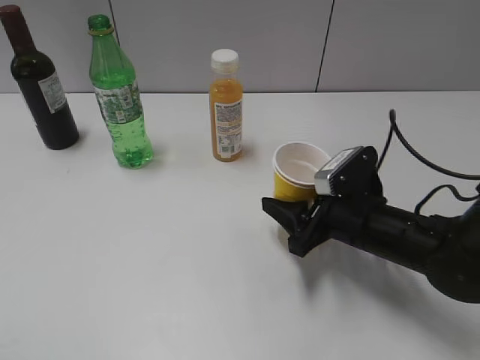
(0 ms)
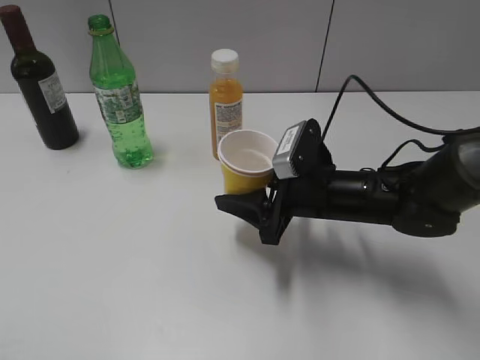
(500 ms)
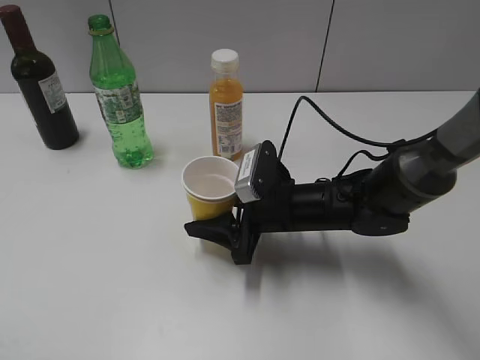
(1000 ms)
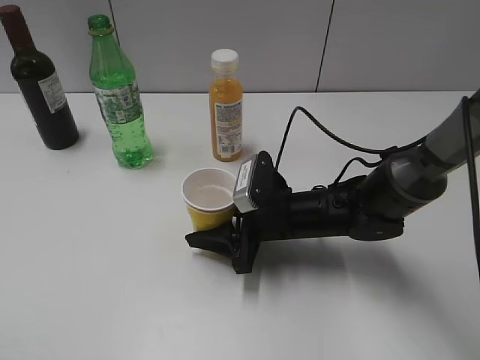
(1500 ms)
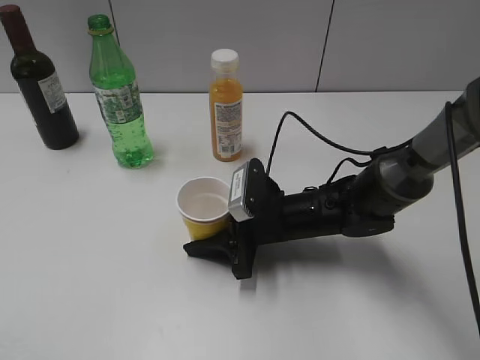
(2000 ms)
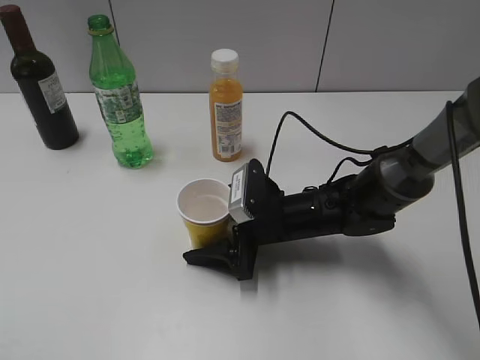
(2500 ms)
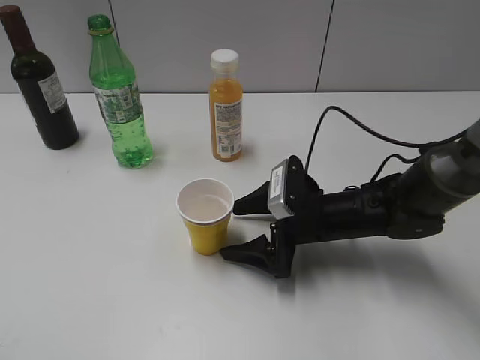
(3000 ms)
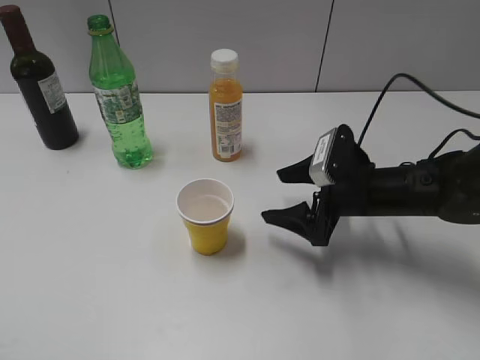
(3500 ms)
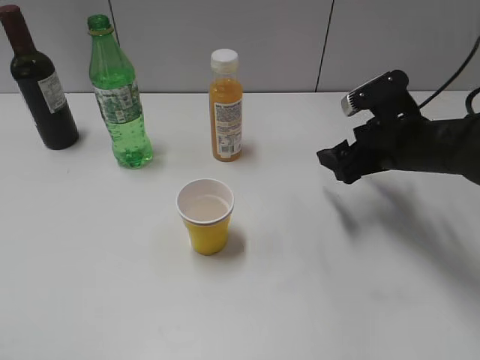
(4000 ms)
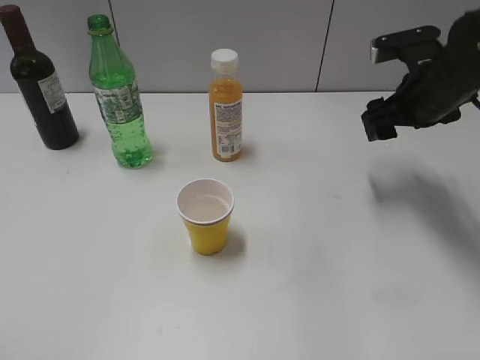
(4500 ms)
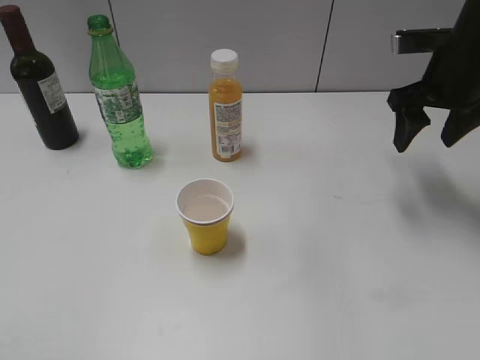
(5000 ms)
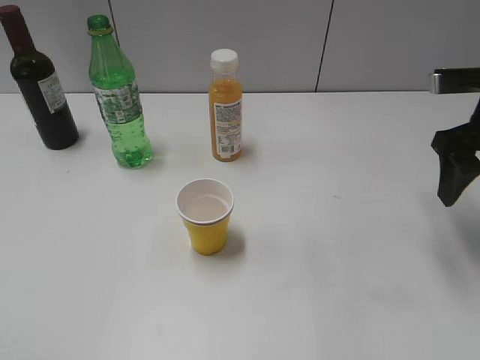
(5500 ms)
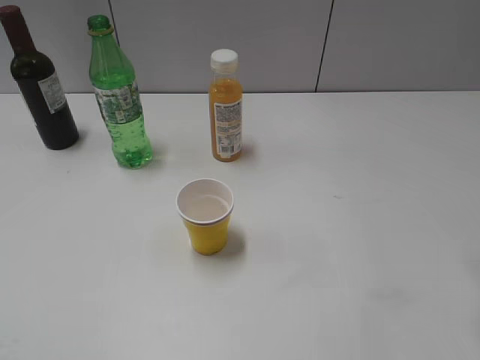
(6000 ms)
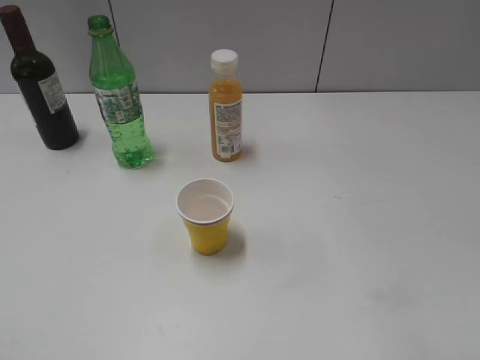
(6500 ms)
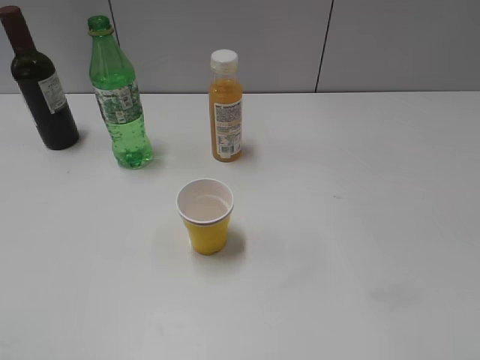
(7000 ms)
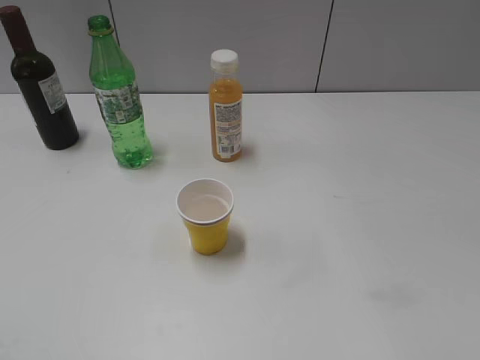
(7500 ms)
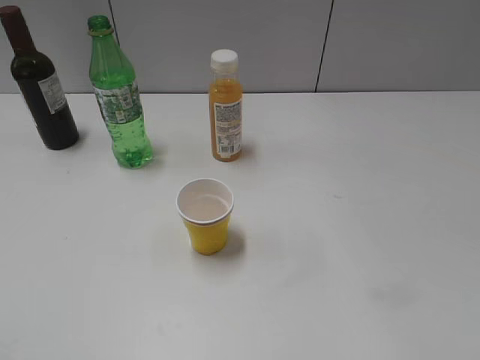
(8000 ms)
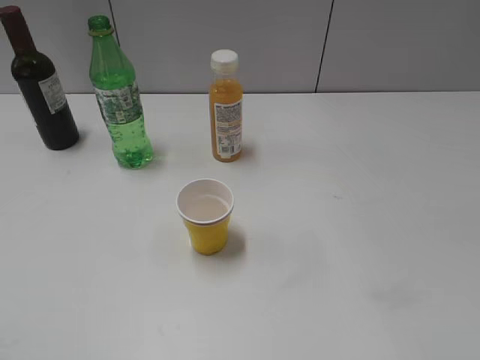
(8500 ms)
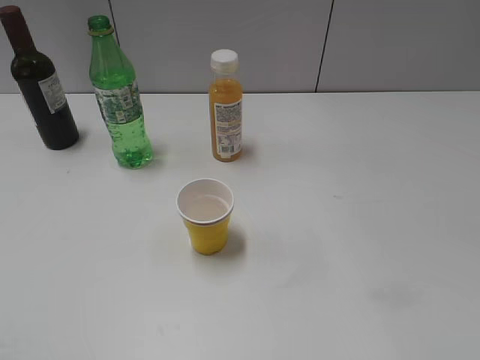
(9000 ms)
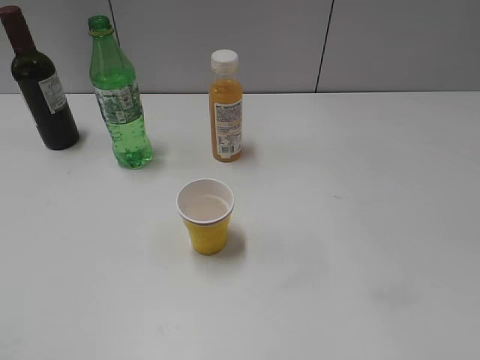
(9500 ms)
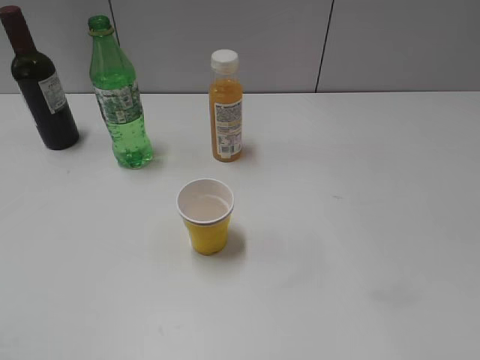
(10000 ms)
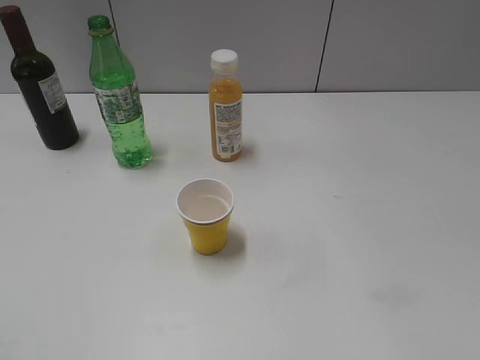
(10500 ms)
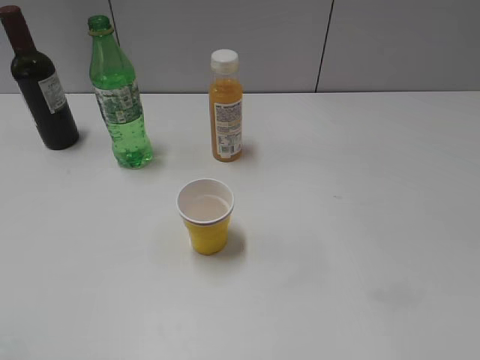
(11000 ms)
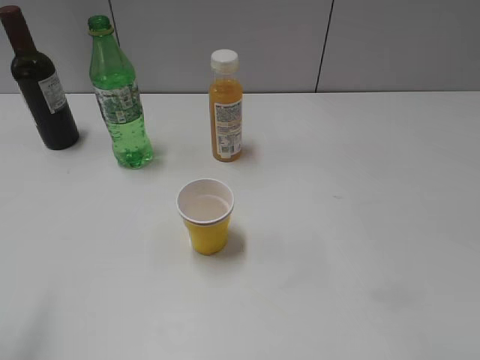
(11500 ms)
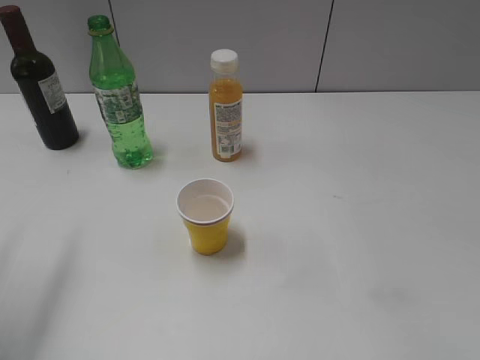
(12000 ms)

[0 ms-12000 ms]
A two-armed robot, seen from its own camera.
Step, 0 ms to 3000 ms: Place the yellow paper cup on the table with right gripper.
0 ms to 2000 ms: The right gripper shifts approximately 10 cm to the left.
2000 ms to 4000 ms: The right gripper shifts approximately 15 cm to the right and upward, and opens up.
4000 ms to 6000 ms: The right gripper moves backward, upward and to the right, some 20 cm.
8000 ms to 10000 ms: Both grippers stay about where they are.
10000 ms to 12000 ms: The left gripper travels forward by about 20 cm, and opens up.

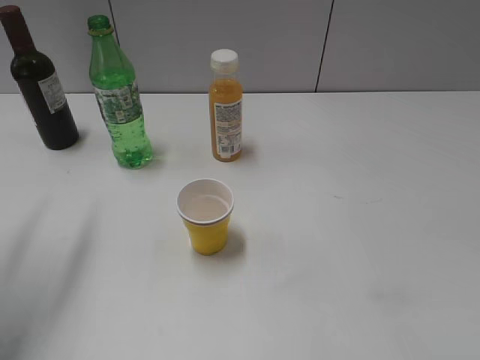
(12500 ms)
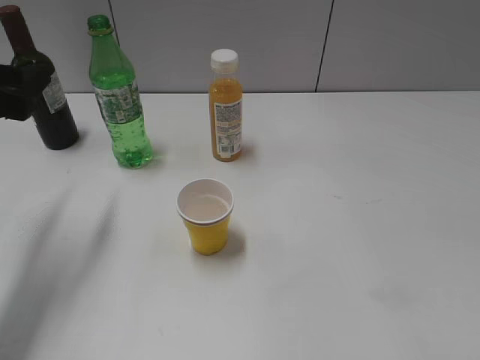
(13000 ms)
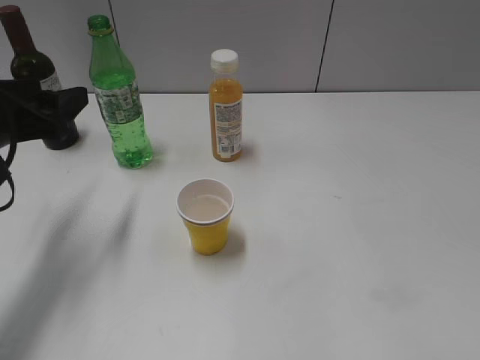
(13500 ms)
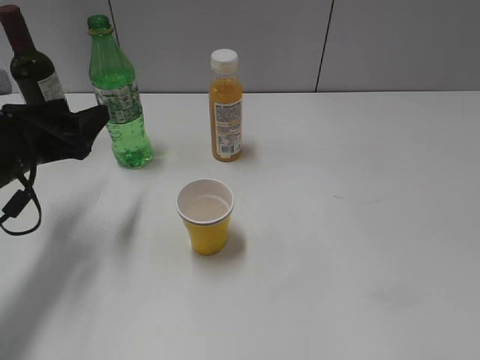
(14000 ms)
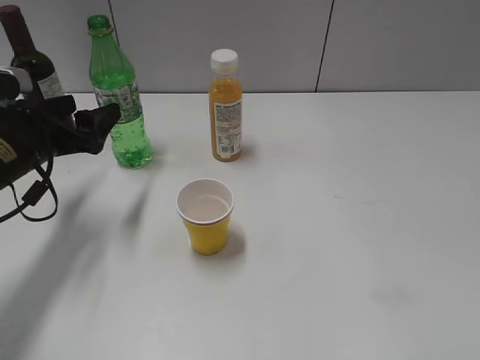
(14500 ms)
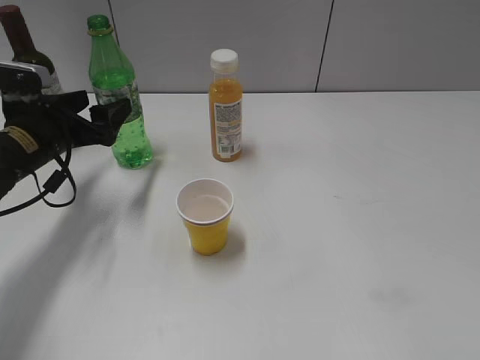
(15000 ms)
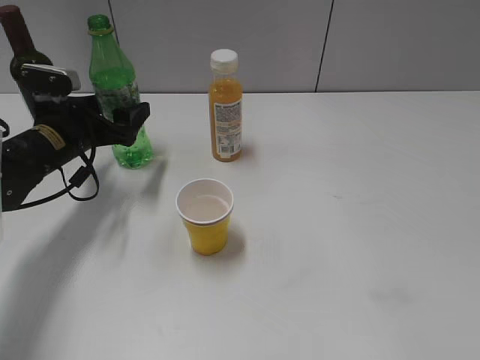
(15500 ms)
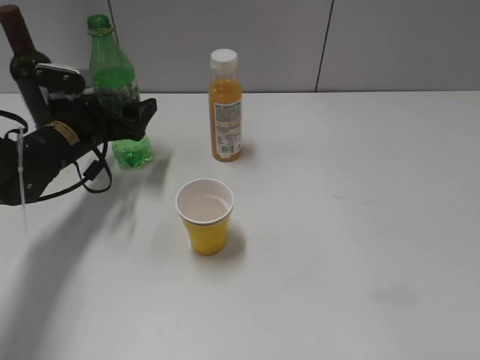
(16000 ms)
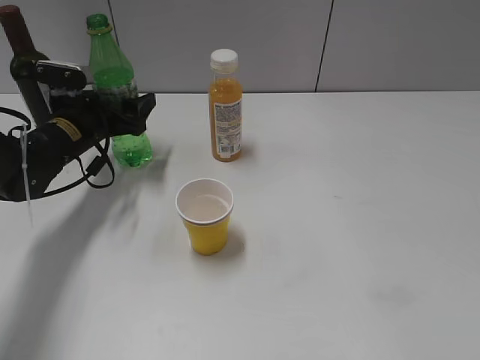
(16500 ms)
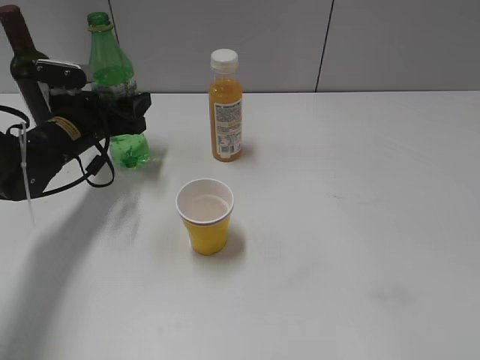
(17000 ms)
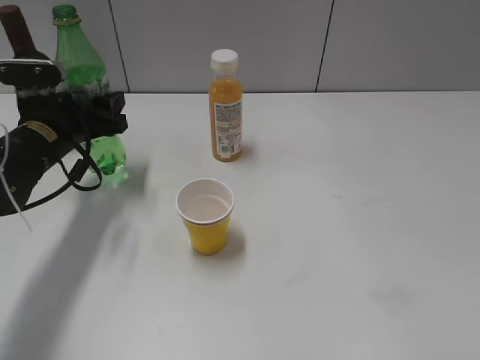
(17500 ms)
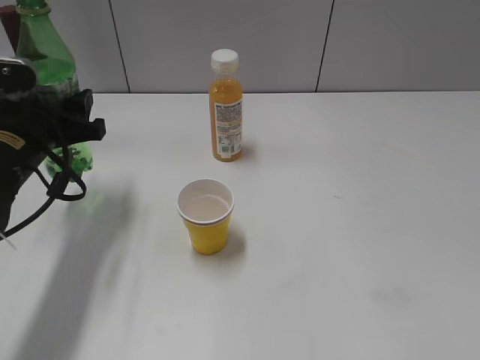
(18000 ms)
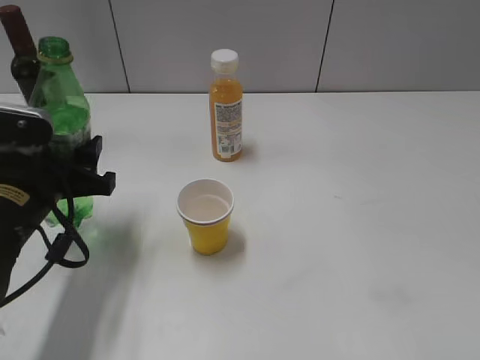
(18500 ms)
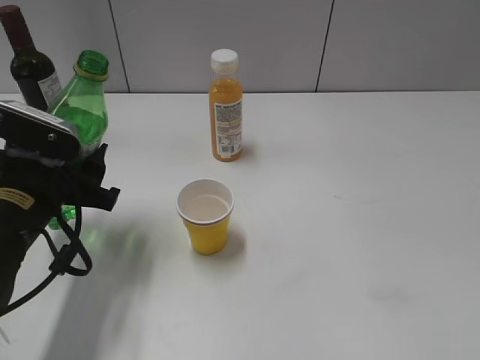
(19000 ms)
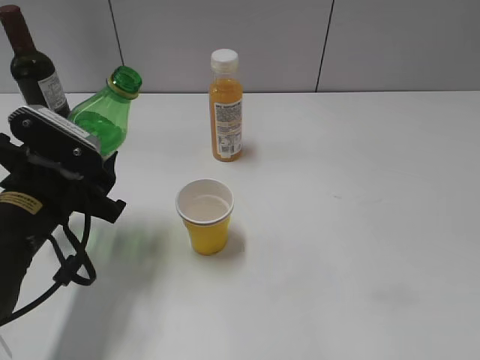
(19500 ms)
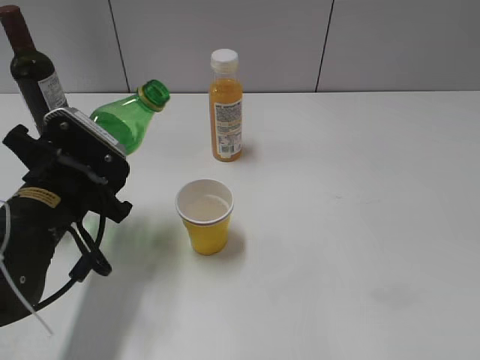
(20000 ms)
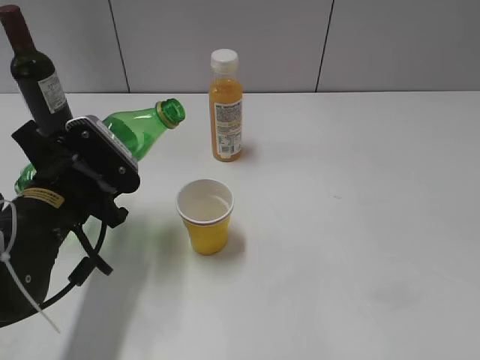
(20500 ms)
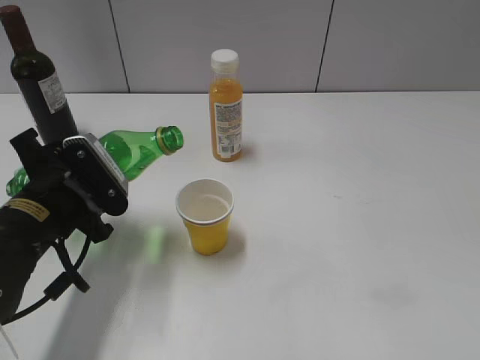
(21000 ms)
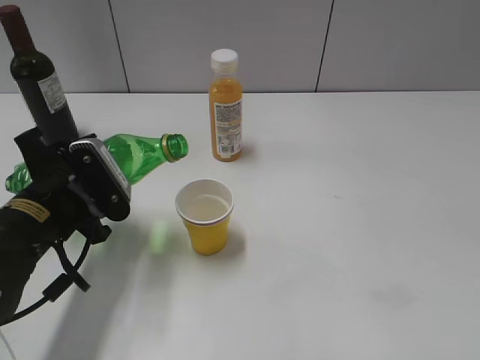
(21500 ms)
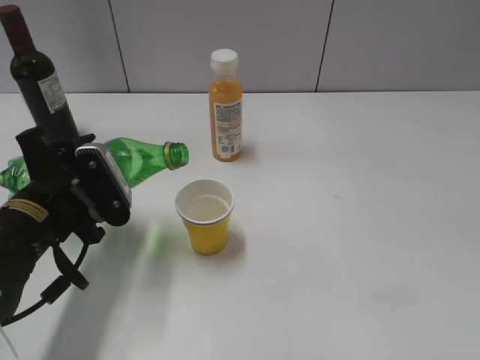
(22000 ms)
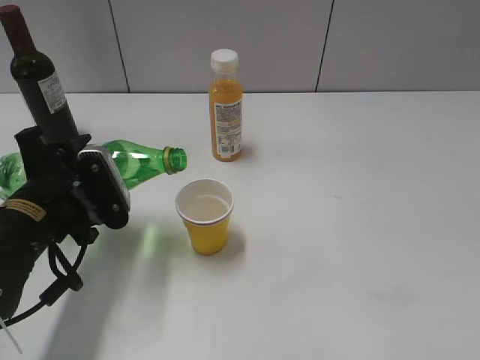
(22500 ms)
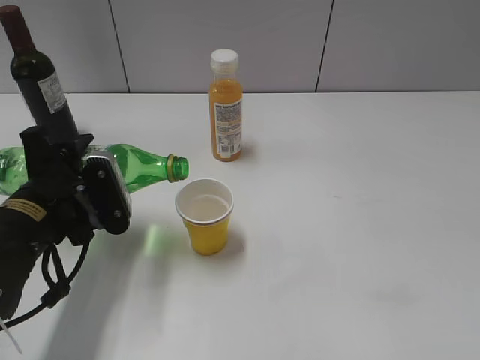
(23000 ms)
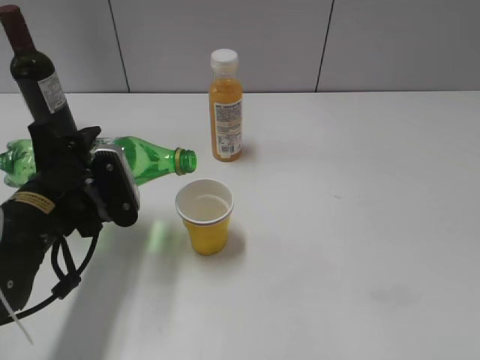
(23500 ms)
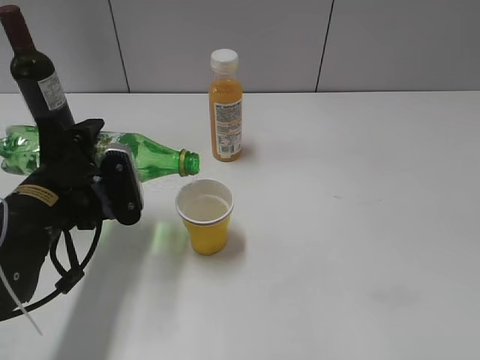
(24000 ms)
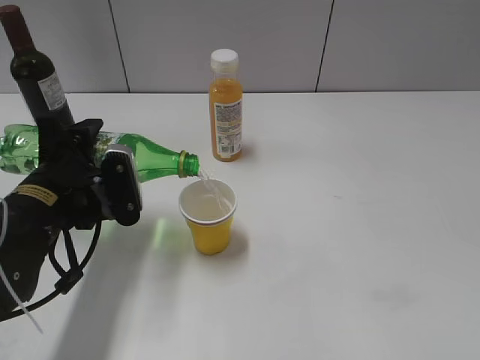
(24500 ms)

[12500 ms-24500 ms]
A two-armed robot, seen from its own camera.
Step, 12500 ms to 16500 ms: Grasp the bottle with sprite with left gripper.
12500 ms to 14500 ms: The left gripper shifts some 15 cm downward and forward.
14500 ms to 16500 ms: The left gripper travels forward by approximately 10 cm.
16500 ms to 18500 ms: The left gripper is displaced backward by about 15 cm, and closes its fingers.
22500 ms to 24500 ms: The grippers make only small movements.

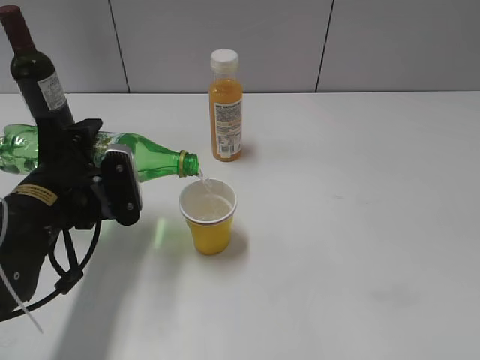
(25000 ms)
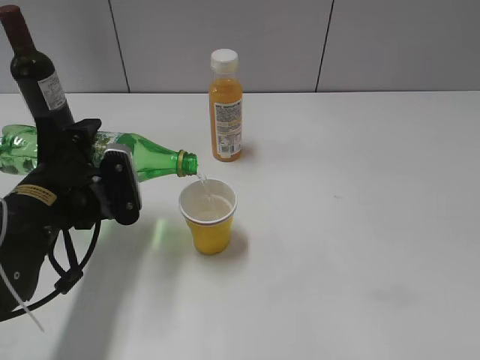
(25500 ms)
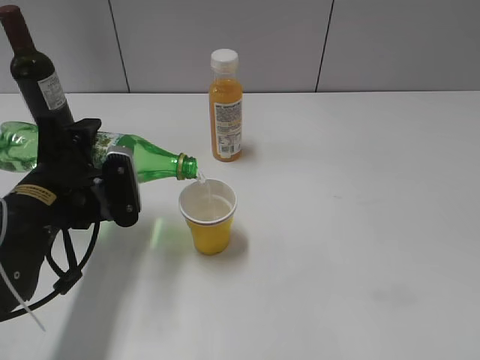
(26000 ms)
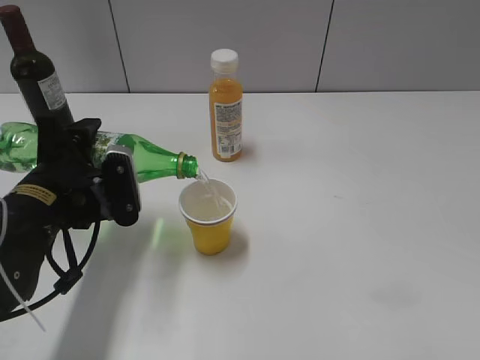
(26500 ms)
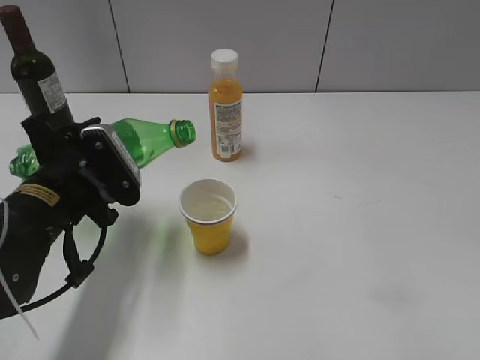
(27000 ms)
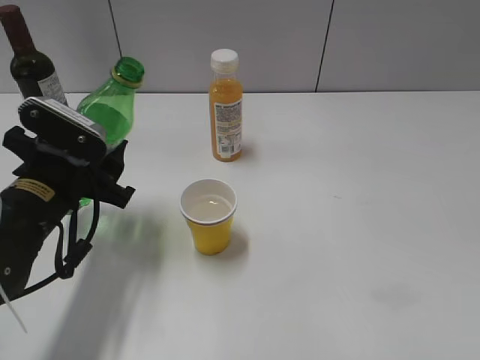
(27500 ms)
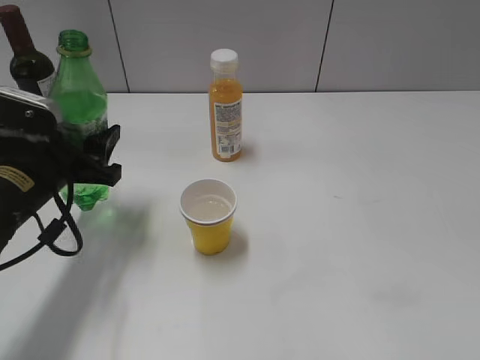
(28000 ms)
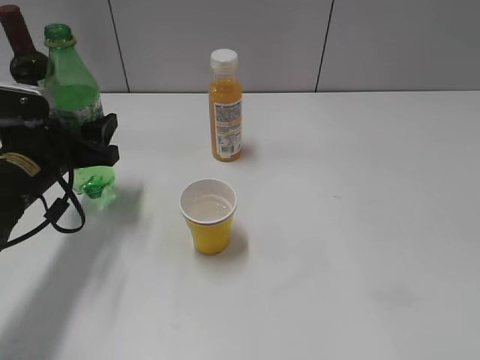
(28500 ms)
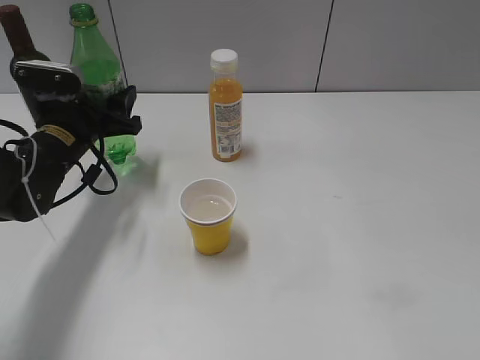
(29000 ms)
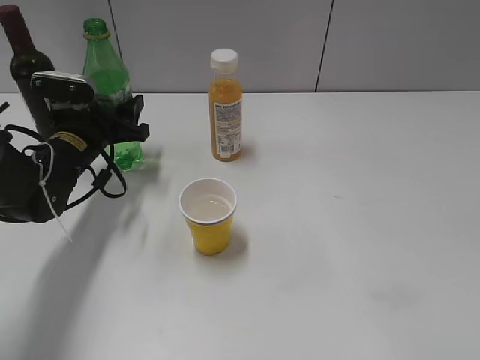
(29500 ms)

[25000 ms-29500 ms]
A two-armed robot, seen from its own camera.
Step, 25000 ms to 27000 ms: Pour the sprite from bottle to cup with left gripper.
25000 ms to 27000 ms: The grippers make only small movements.
27000 ms to 29500 ms: The left gripper moves forward, roughly 15 cm.
